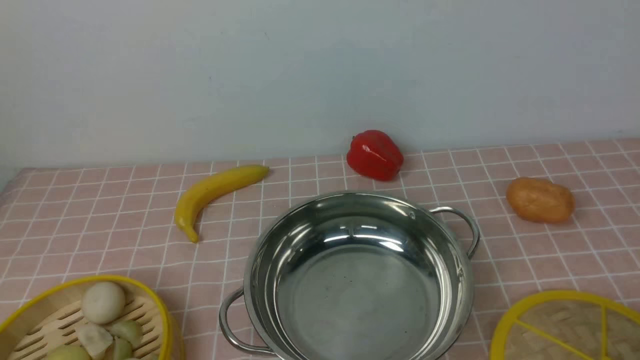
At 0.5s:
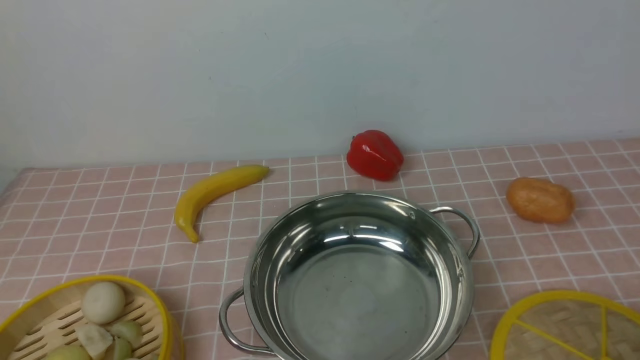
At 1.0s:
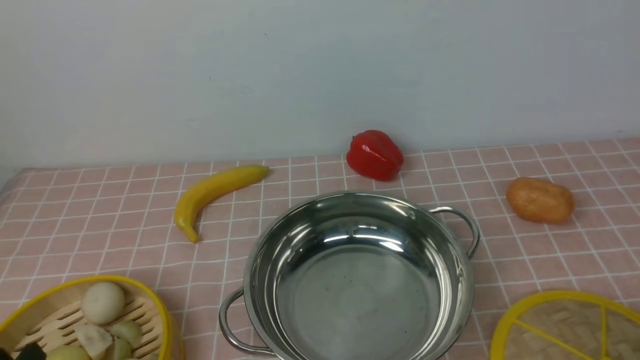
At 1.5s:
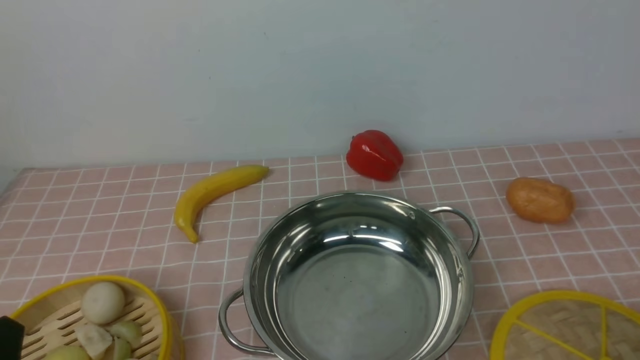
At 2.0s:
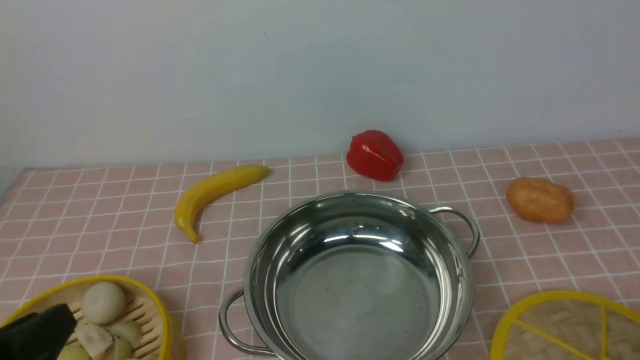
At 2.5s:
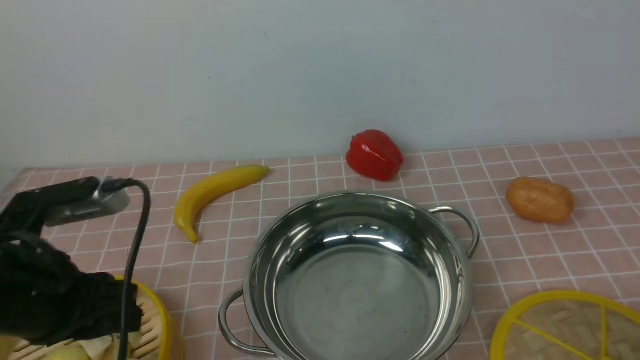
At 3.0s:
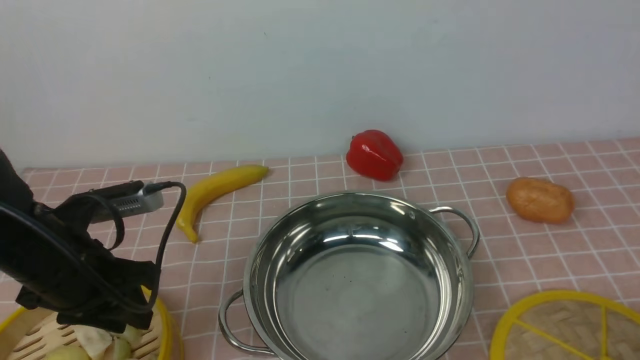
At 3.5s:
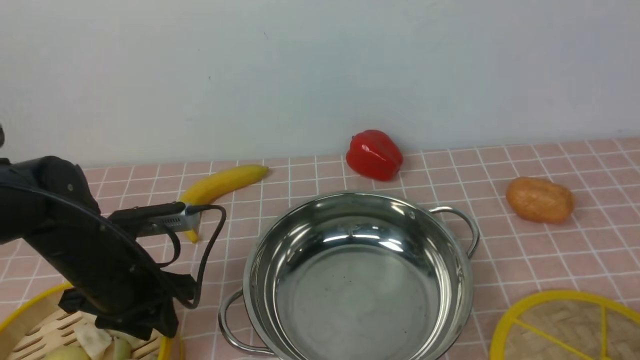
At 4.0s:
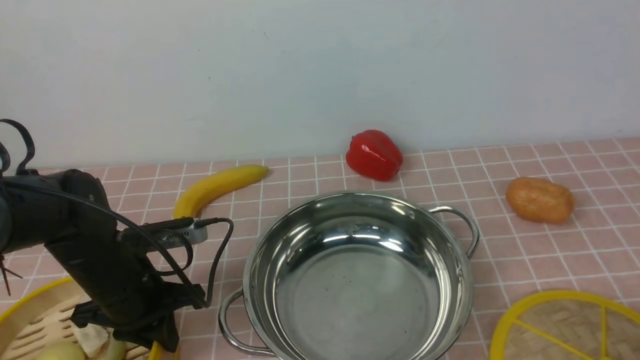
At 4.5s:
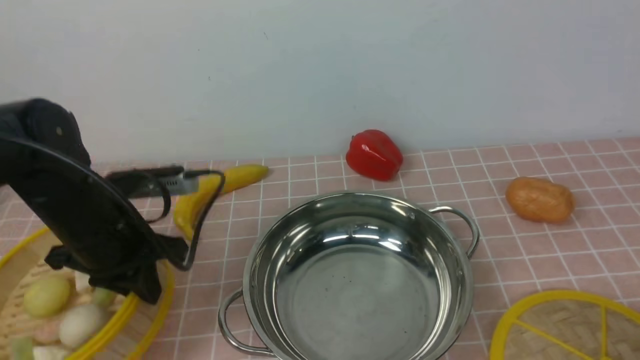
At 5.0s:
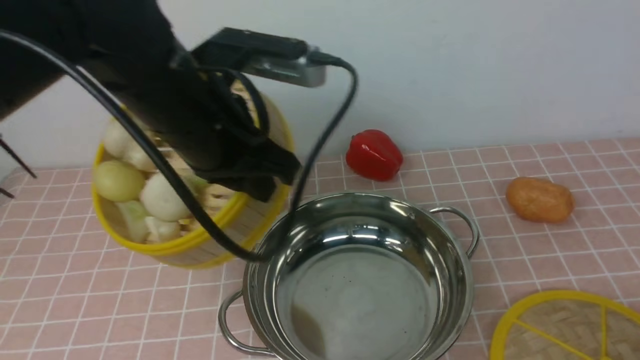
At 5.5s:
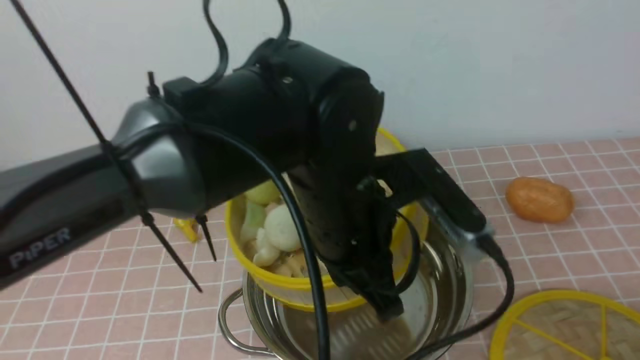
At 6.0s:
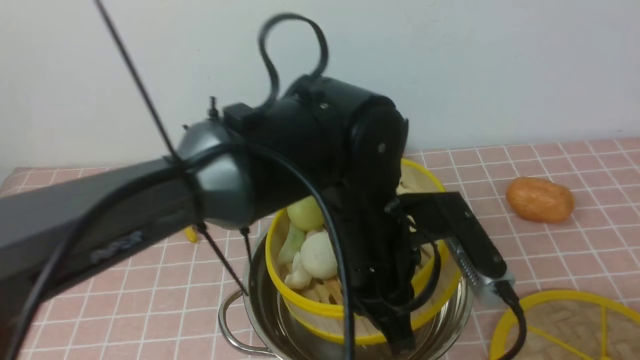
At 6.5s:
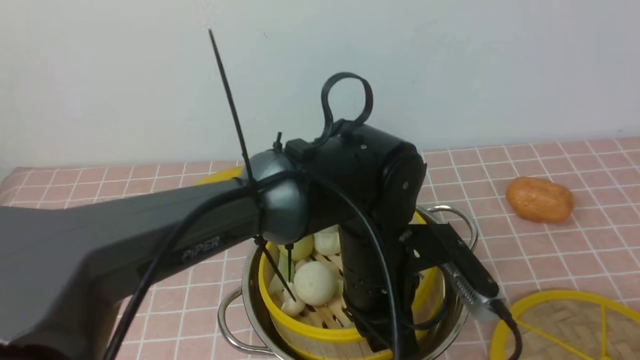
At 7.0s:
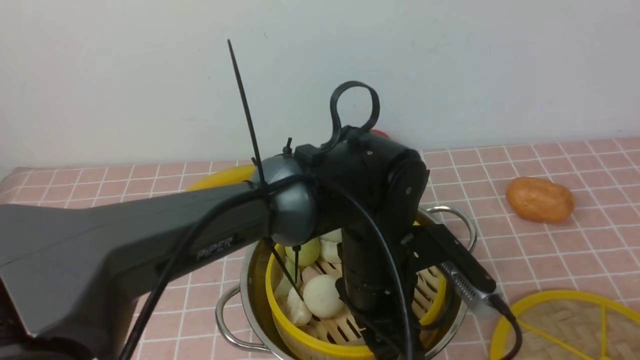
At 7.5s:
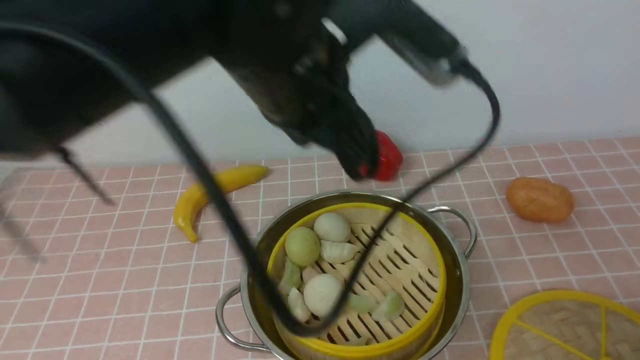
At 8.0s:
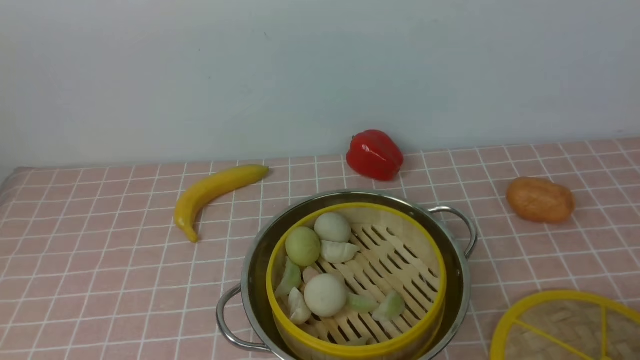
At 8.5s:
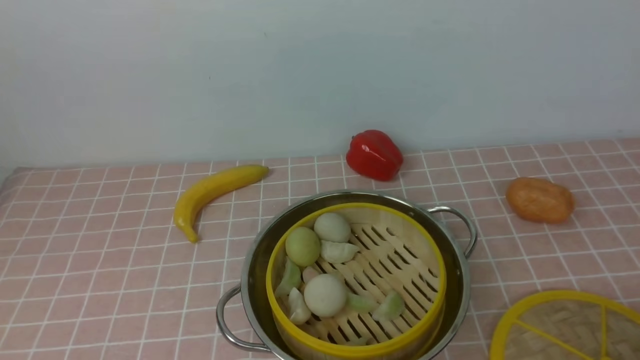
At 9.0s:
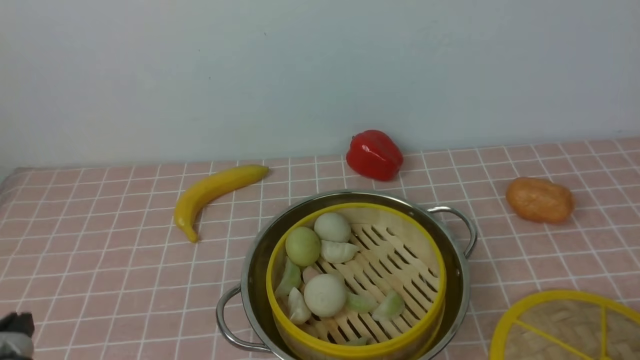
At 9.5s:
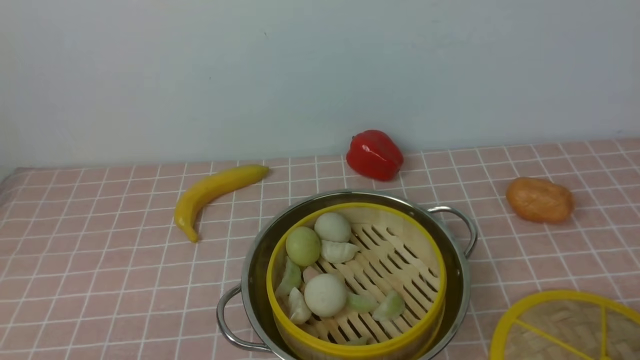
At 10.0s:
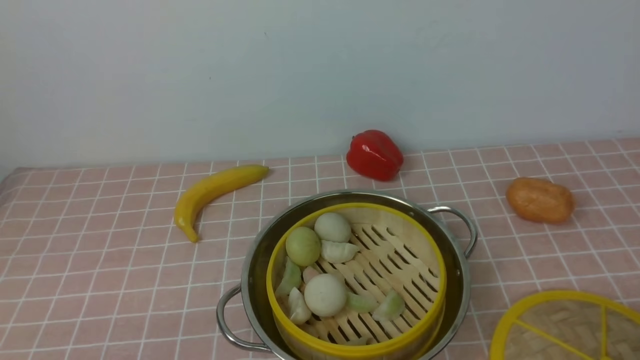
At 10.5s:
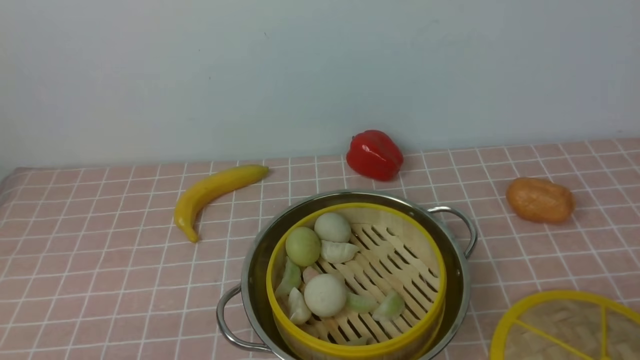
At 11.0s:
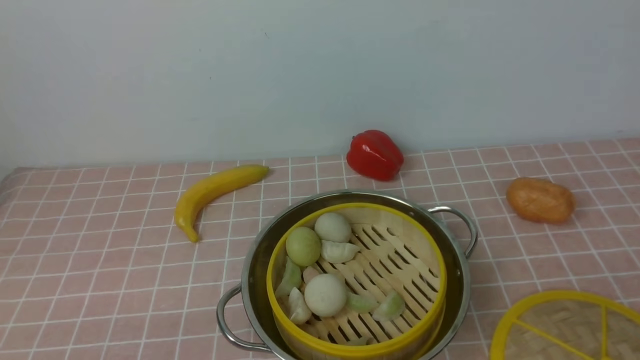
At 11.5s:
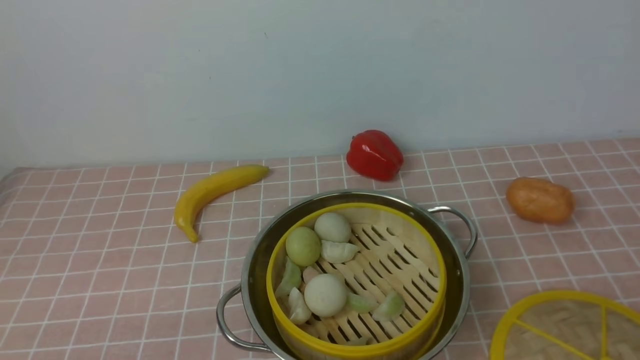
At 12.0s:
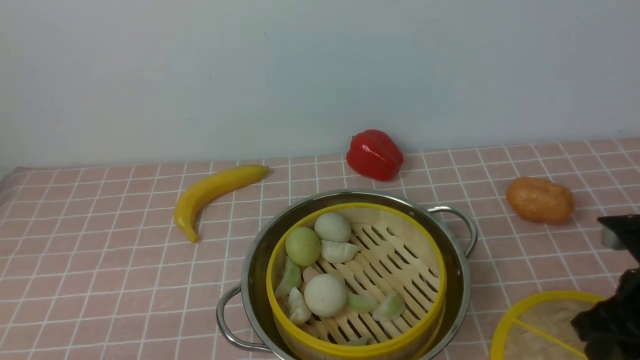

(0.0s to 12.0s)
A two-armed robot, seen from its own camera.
Task of the whole recording: place the steamer in the pot on the pink tablecloth, and put the lid on the steamer.
Step, 0.0s - 4.0s: use the left arm to lift the steamer closest to it.
Step, 4.5s - 7.0s: use the left arm to put the steamer into the iron steamer pot in the middle.
0.0s - 2.0s: The left gripper moves upward, about 10 cm.
2.0s - 4.0s: The left gripper heads forward and downward, covering some 25 cm, and closes its fingers.
4.0s - 6.0s: The left gripper heads to the right, covering about 25 cm.
6.0s - 8.0s: The left gripper shifts approximately 35 cm upward and to the left, and opens, then closes again.
10.0s - 12.0s: The right gripper shifts about 15 cm forward.

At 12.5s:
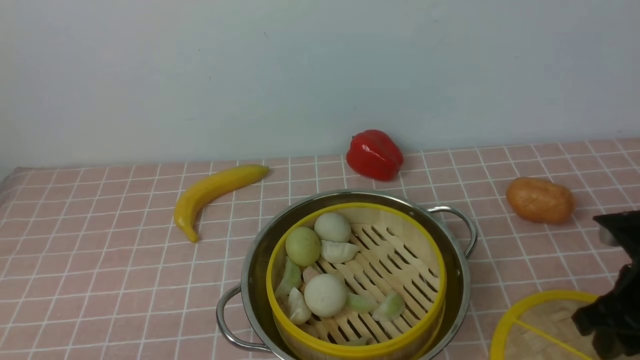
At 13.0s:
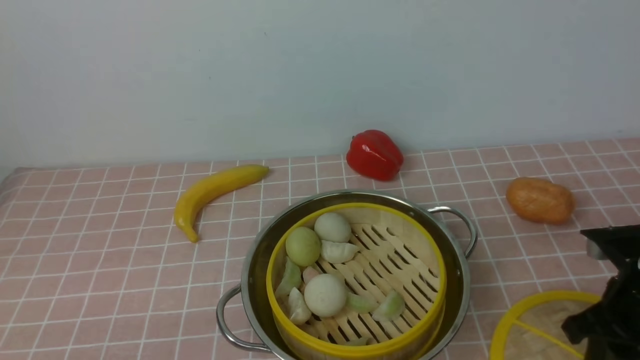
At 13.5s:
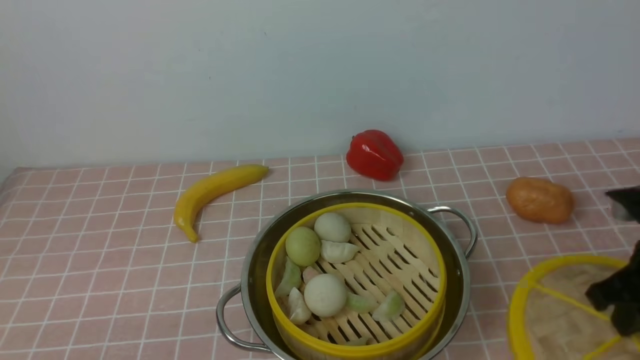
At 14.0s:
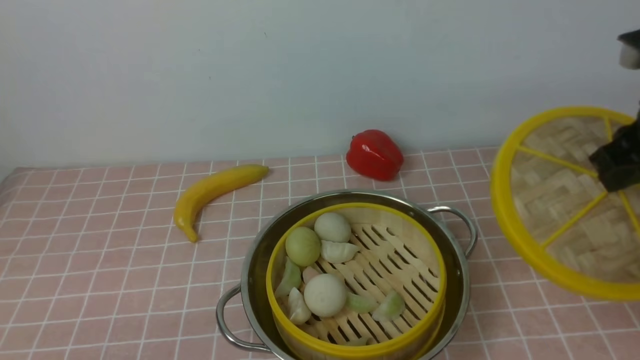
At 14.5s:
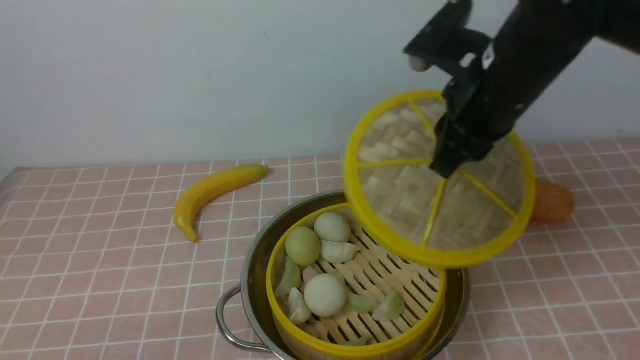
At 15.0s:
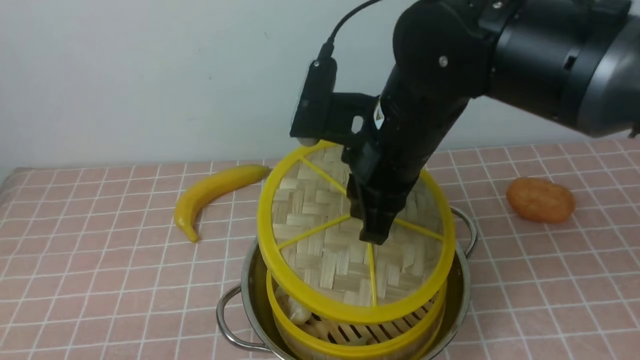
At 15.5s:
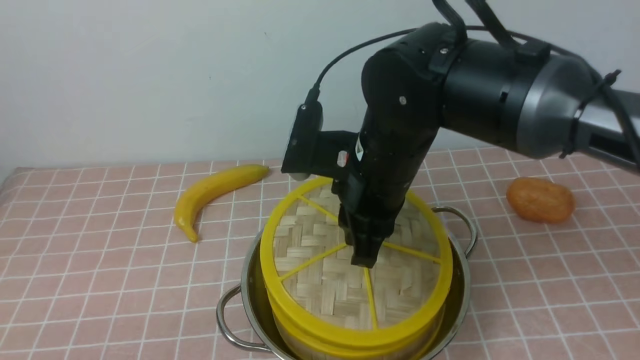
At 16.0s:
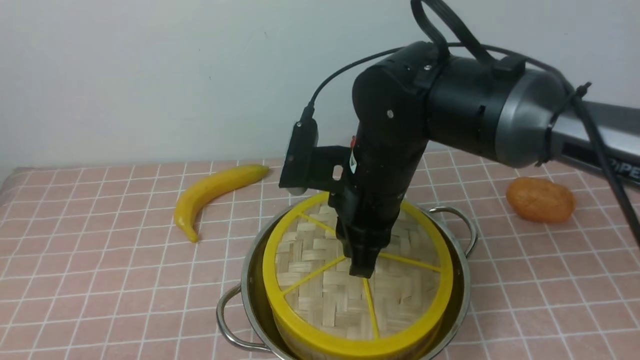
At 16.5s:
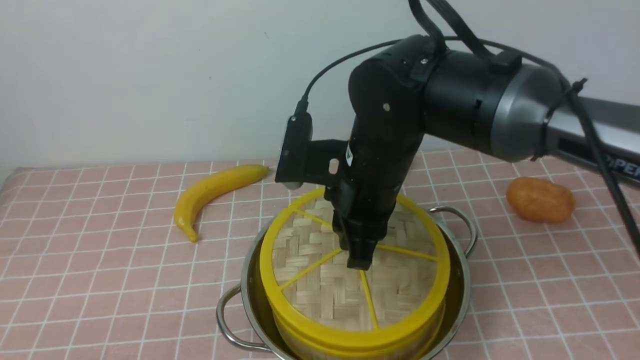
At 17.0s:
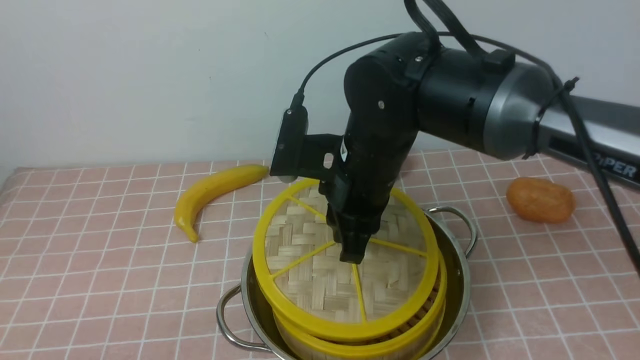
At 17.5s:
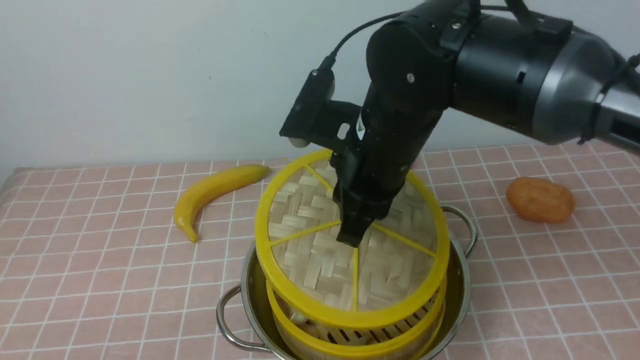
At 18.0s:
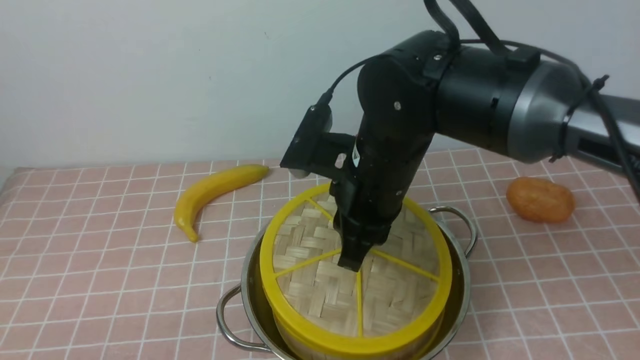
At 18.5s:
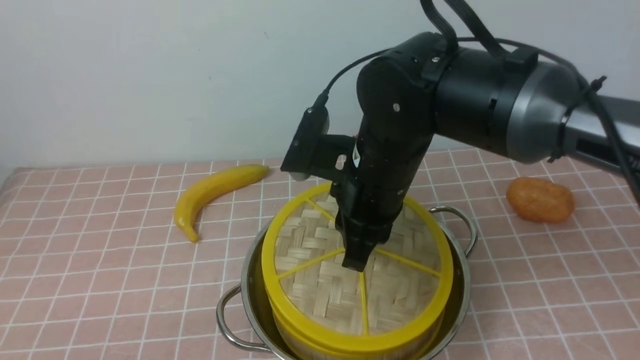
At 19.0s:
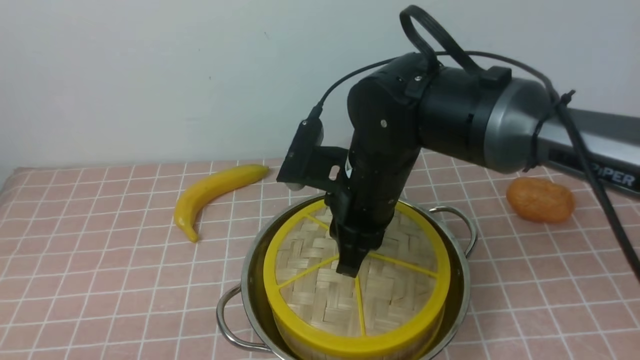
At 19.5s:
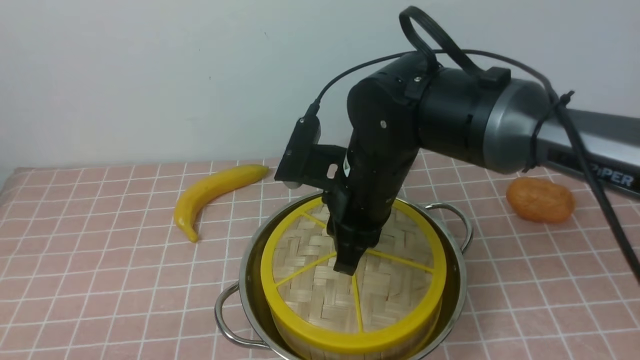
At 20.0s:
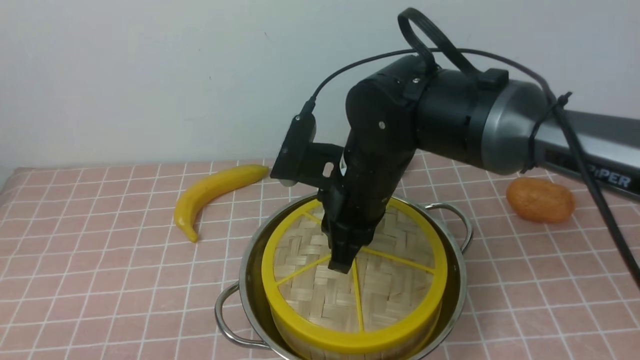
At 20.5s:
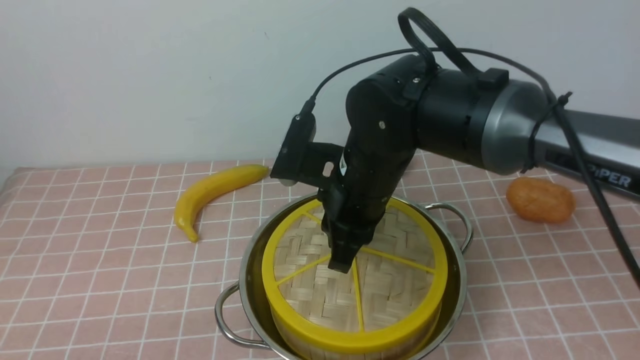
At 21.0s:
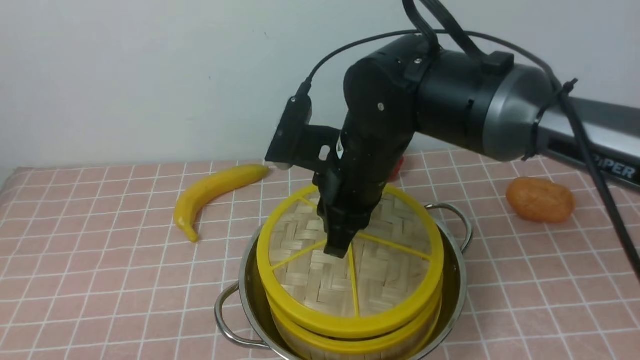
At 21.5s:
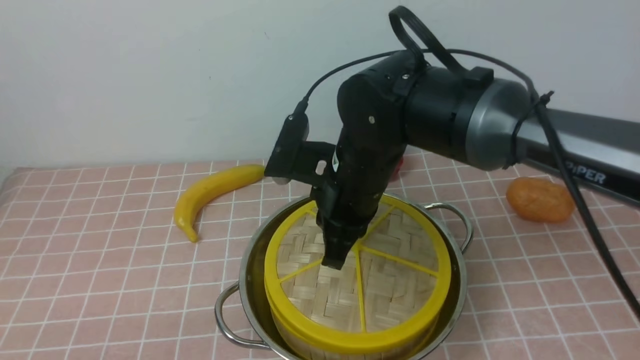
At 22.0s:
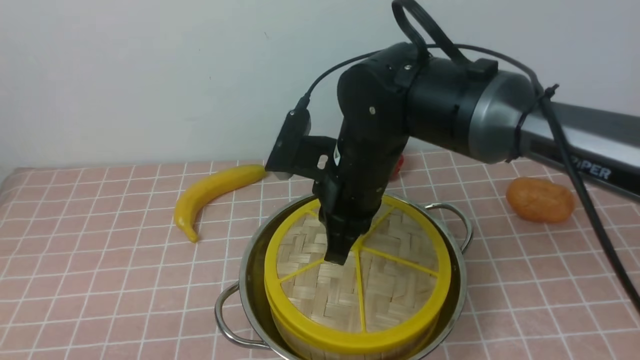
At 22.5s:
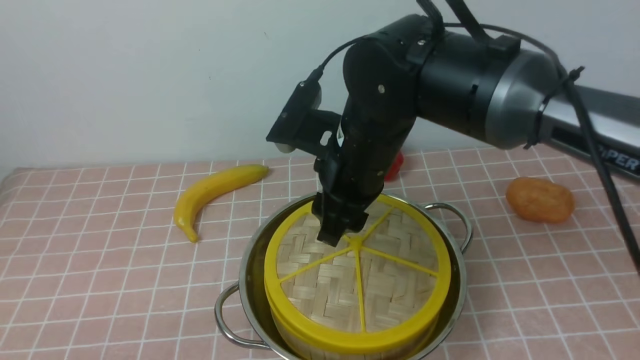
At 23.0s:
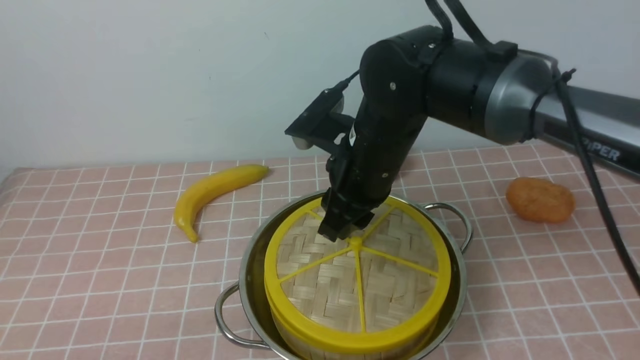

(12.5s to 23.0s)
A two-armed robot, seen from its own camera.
Task of the whole recording: place the steamer in the pot on the pink tablecloth, and put the lid on the steamer.
12.5s - 14.5s: The right gripper shifts about 25 cm to the left, upward and forward.
14.5s - 16.5s: The right gripper heads to the left and downward, covering approximately 10 cm.
16.5s - 21.0s: The grippers stay close to where they were, moving slightly.
21.0s - 23.0s: The right gripper opens up.
